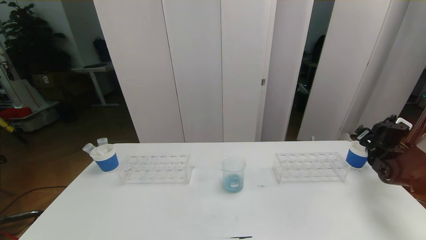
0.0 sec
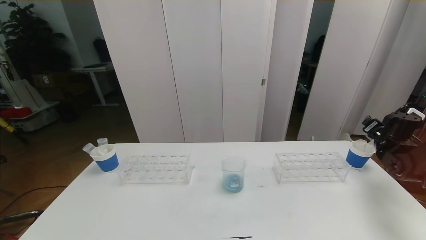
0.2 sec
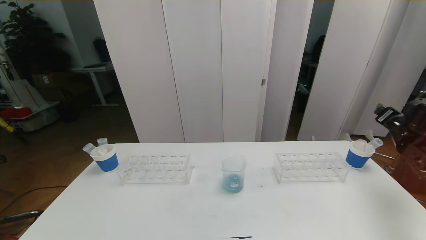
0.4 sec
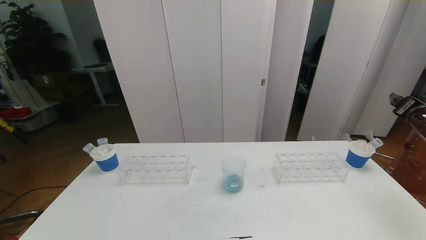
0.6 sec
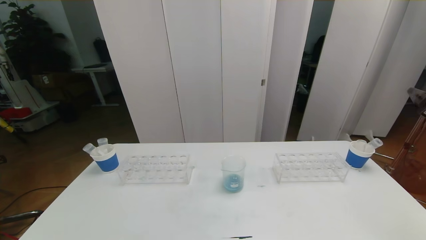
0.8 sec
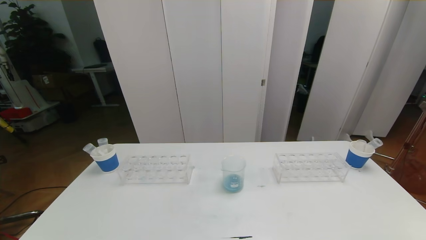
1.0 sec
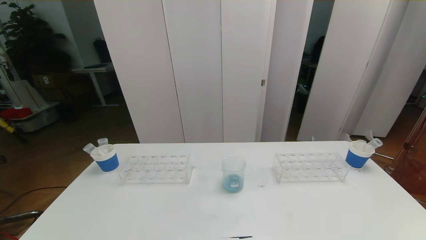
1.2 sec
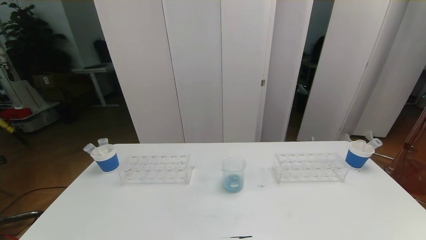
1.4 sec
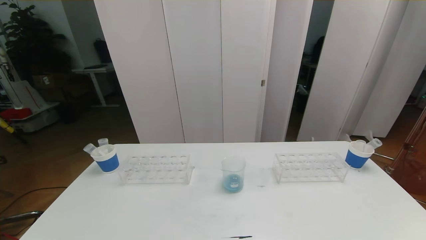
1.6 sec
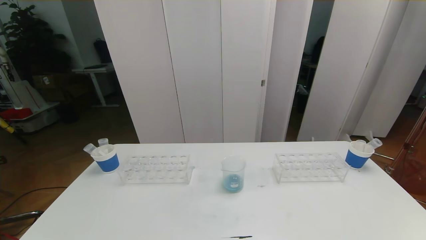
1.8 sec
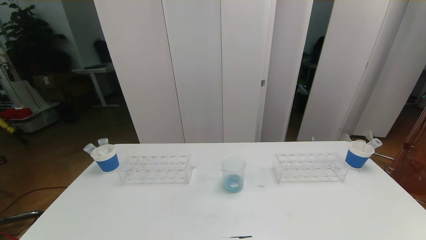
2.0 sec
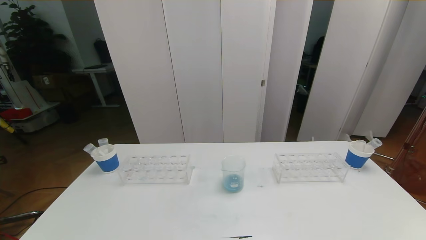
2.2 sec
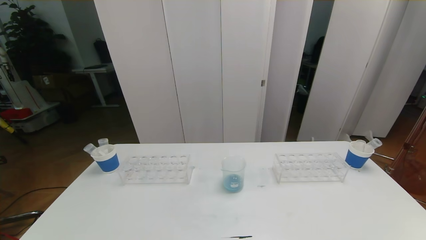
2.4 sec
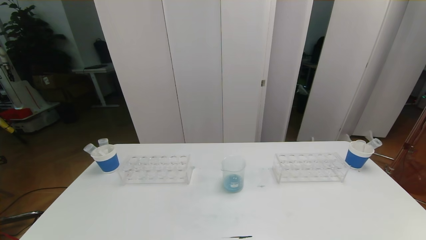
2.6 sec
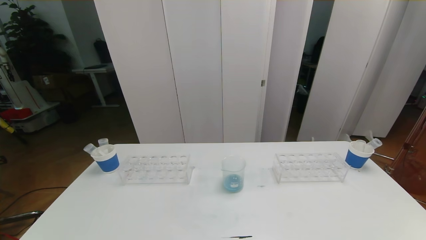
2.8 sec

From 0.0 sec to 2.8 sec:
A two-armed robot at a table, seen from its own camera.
Task of the whole recording: pick up the test tube with red pigment the test tube with blue pigment and the test tube with white pigment by grippers and pour them into the beaker.
Step, from 0.0 sec to 2.8 sec: Pour the white reagent into the graduated cylinder and place the test tube into the paper cup.
From 0.0 sec to 1.4 sec: The right gripper shifts some 35 cm backward.
